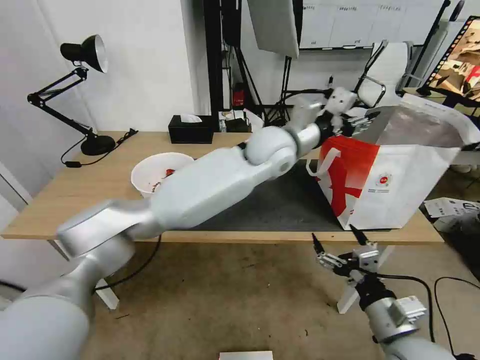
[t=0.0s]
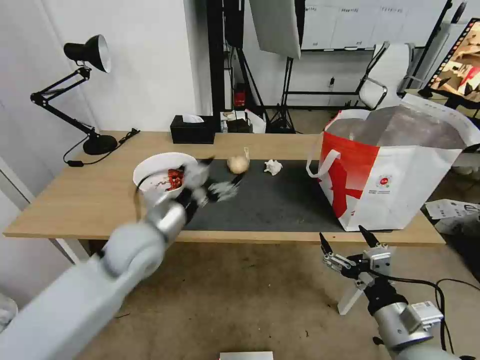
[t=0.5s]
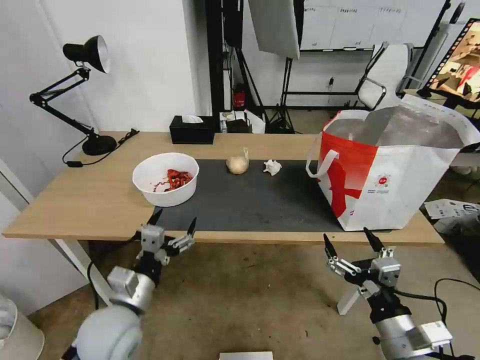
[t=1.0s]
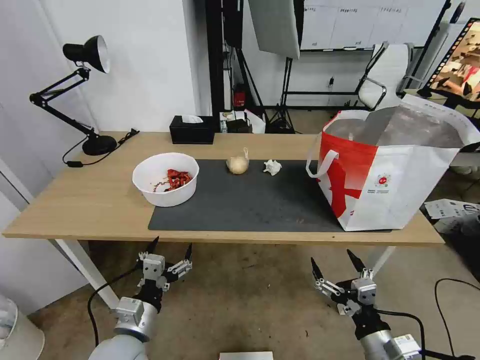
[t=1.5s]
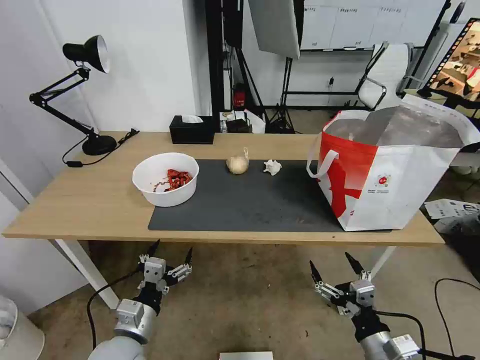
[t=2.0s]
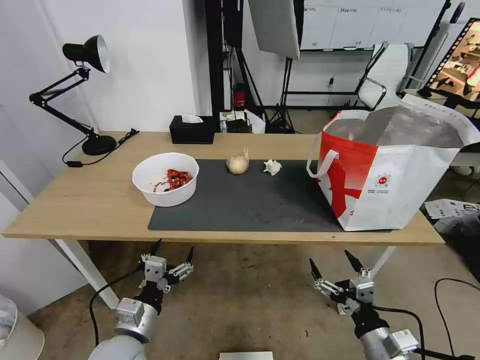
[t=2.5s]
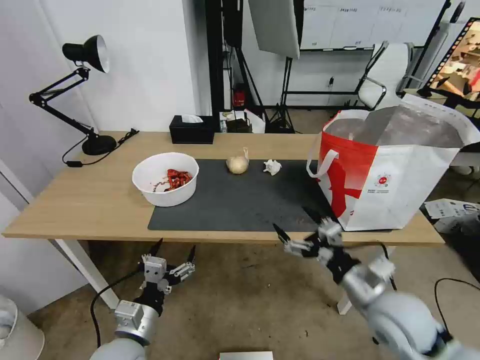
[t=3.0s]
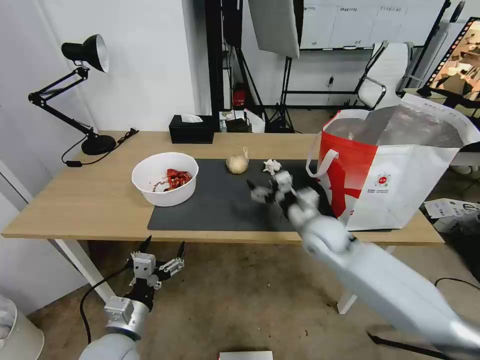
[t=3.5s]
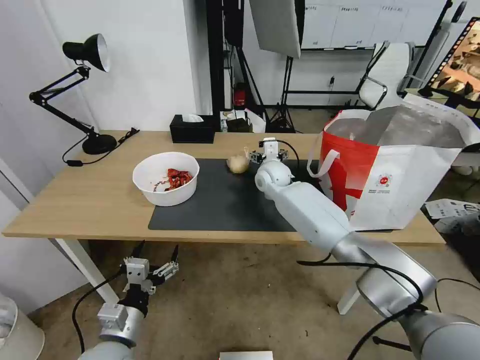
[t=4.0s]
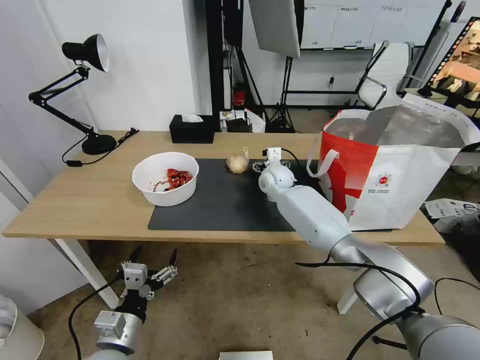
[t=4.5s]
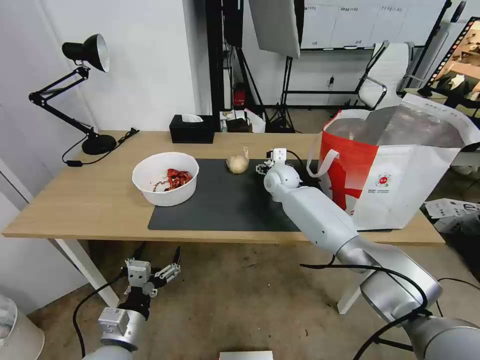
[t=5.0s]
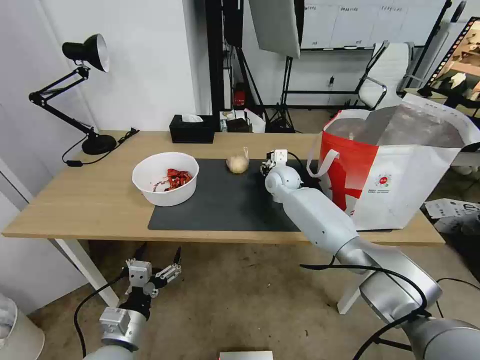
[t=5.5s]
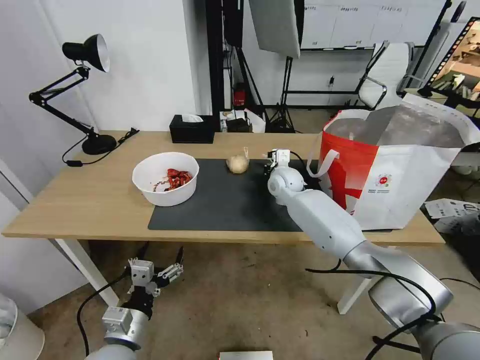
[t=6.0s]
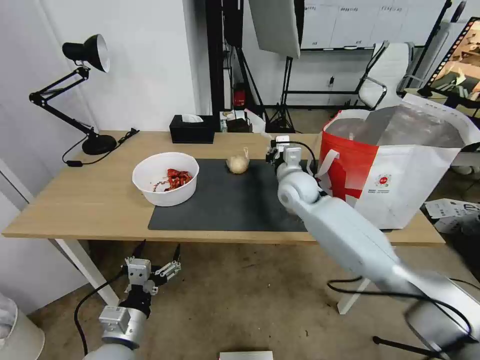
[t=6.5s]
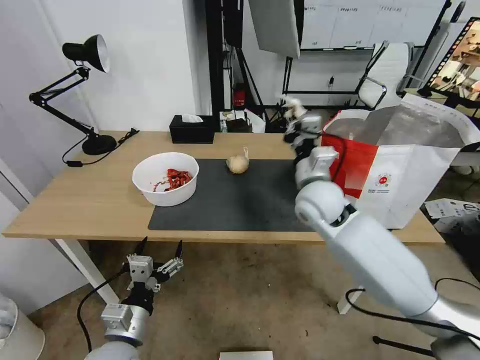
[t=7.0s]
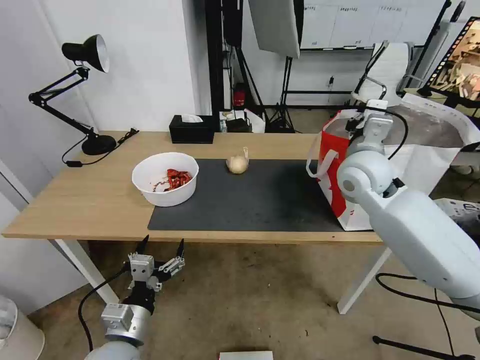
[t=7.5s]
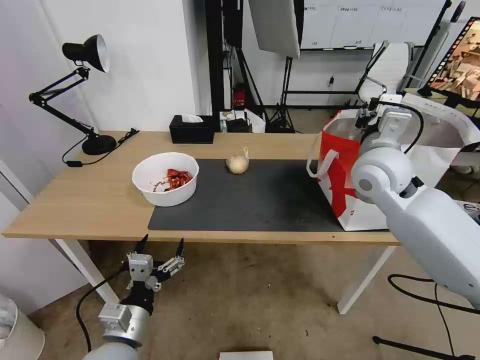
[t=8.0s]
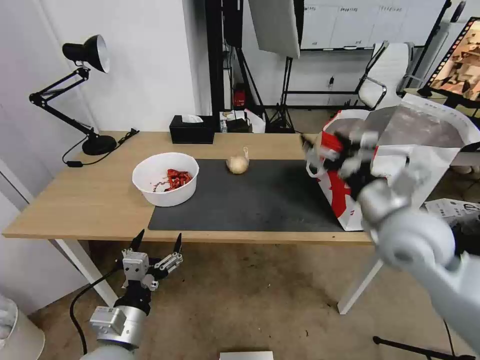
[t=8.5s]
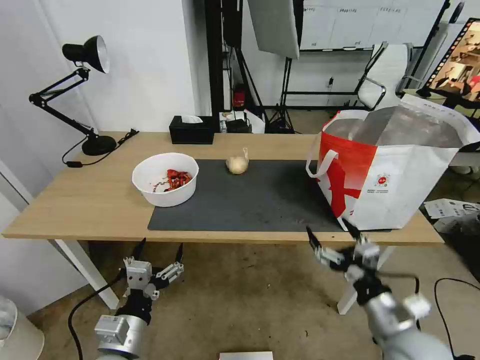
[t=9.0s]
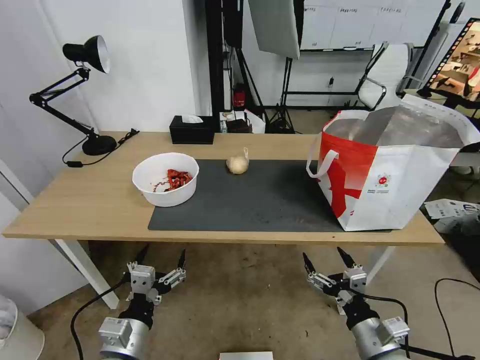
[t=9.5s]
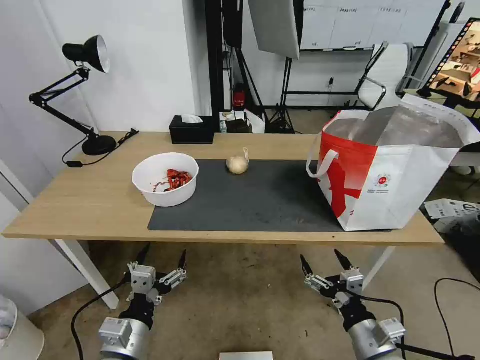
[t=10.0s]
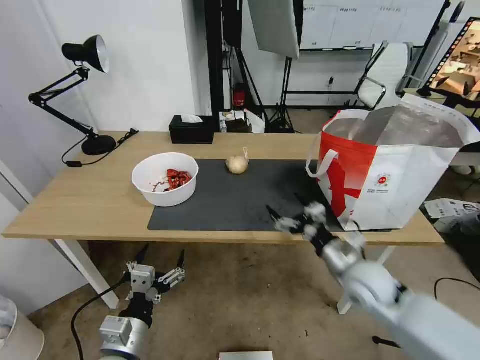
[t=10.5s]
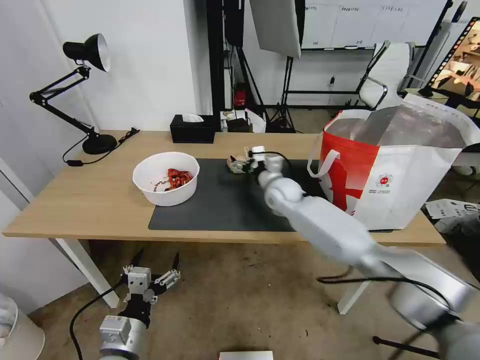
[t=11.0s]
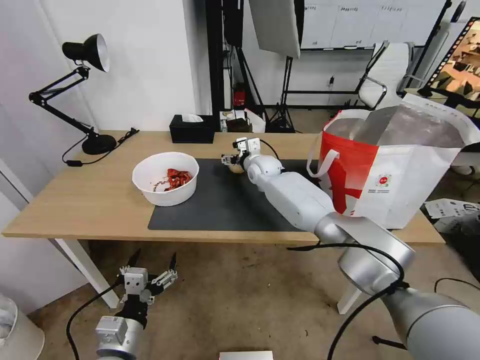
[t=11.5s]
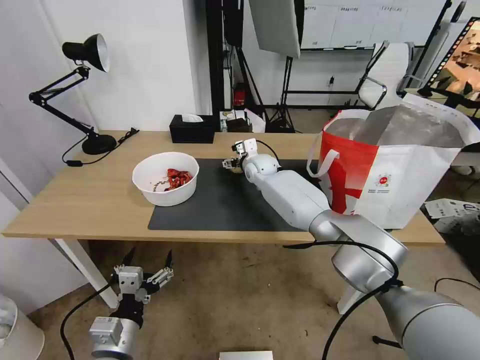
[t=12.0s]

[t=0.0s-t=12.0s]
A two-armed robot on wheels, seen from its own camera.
Task of the whole recording: Pick up the trash from the table and place it into the takeout bag.
t=0.0s to t=2.0s: The right gripper moves downward, some 5 cm, while the left gripper goes approximately 50 cm backward, to the left and downward, and opens.
t=2.0s to t=4.0s: The right gripper heads forward and to the left, covering roughly 50 cm.
t=4.0s to t=6.0s: The right gripper closes its fingers.
t=6.0s to t=8.0s: The right gripper goes approximately 25 cm upward, backward and to the right, and opens.
t=8.0s to t=10.0s: The right gripper heads backward and downward, covering about 40 cm, and opens.
t=10.0s to t=12.0s: The right gripper shifts some 50 cm forward and to the left.

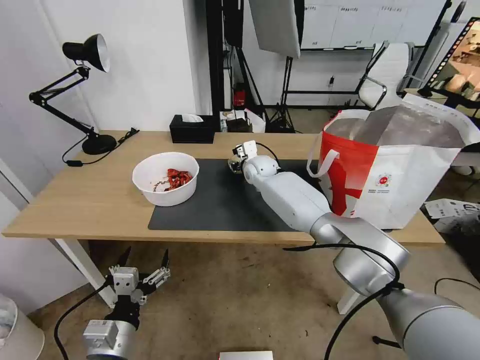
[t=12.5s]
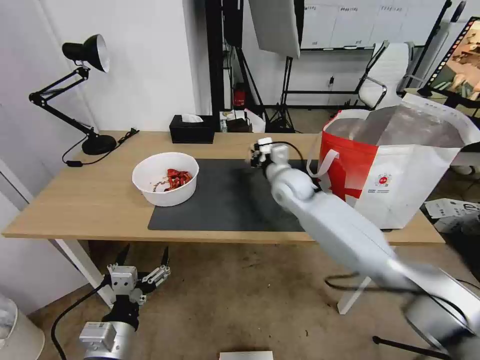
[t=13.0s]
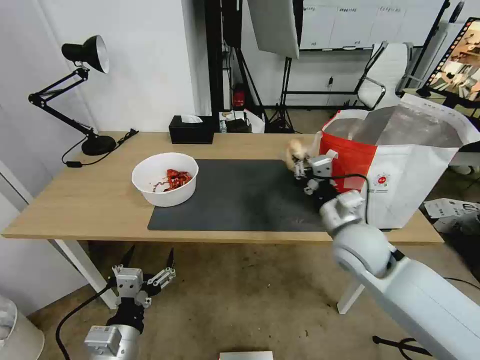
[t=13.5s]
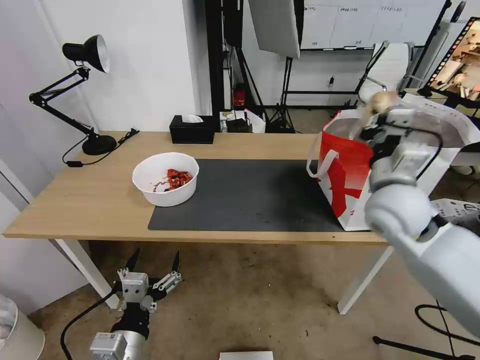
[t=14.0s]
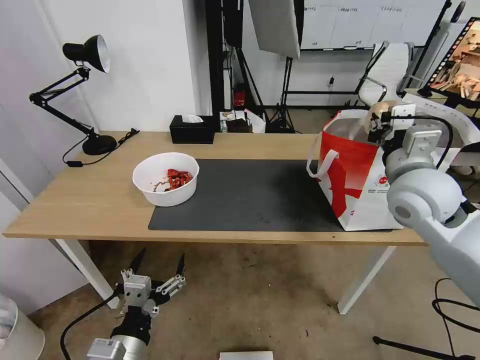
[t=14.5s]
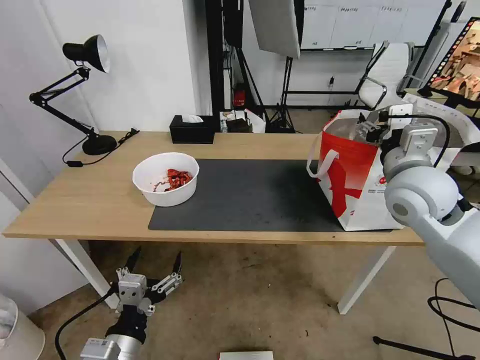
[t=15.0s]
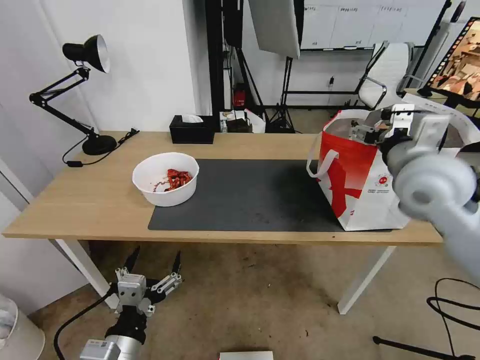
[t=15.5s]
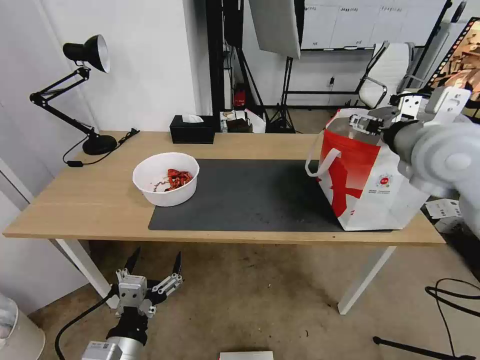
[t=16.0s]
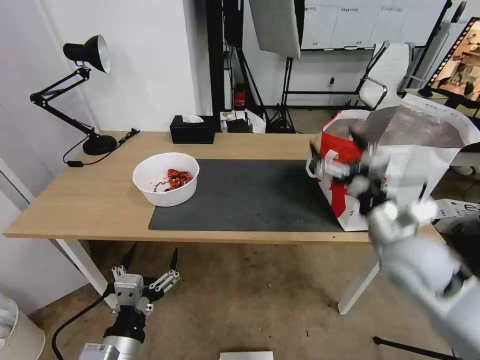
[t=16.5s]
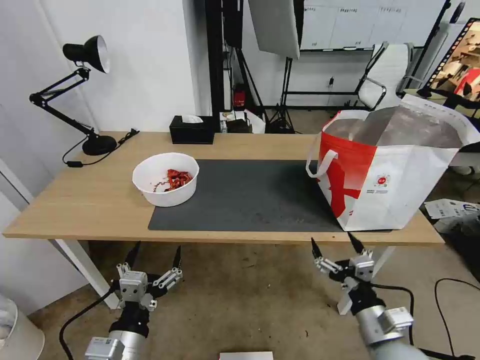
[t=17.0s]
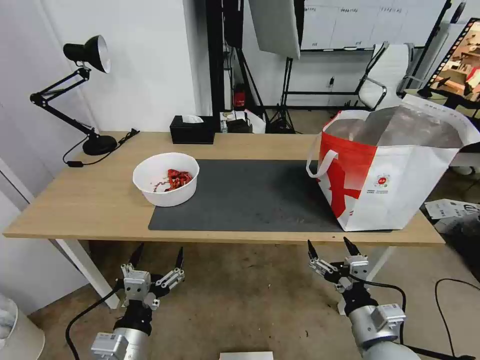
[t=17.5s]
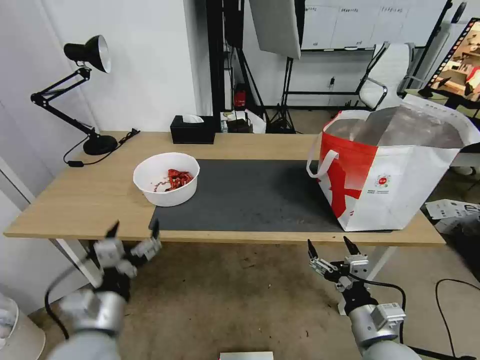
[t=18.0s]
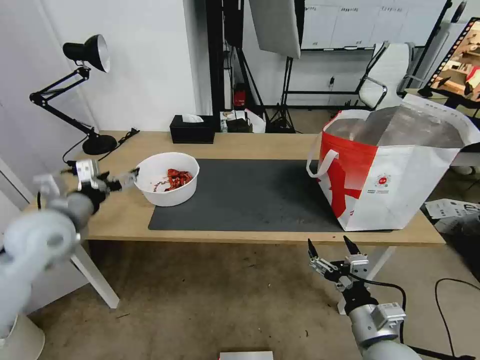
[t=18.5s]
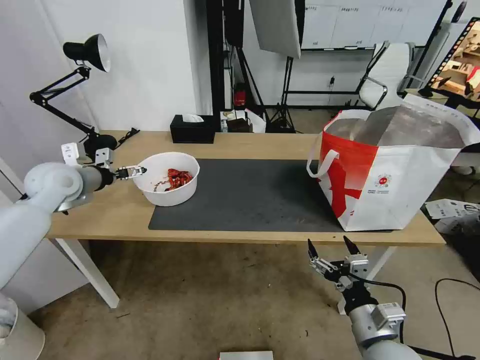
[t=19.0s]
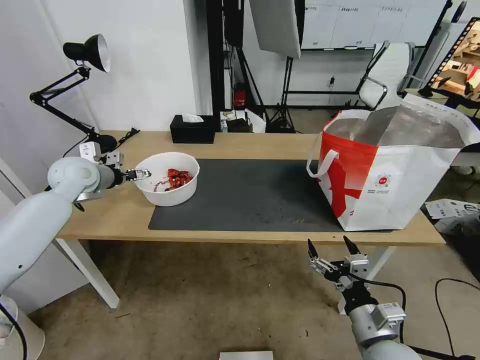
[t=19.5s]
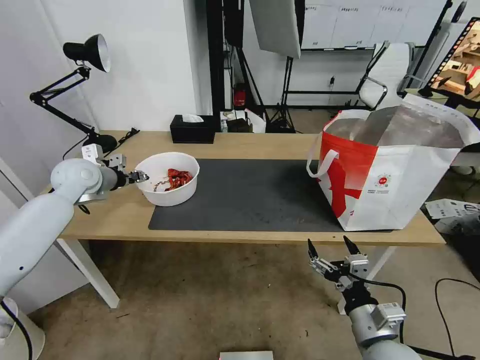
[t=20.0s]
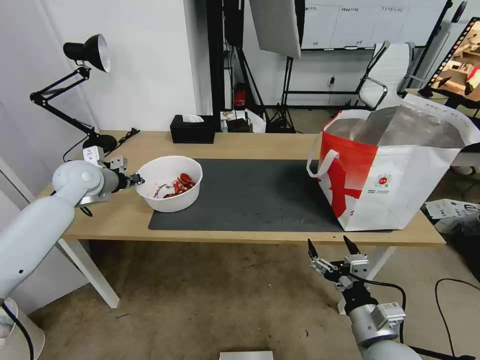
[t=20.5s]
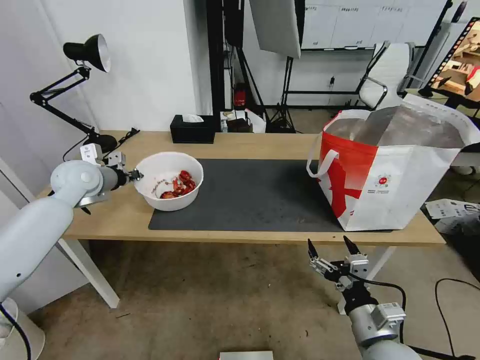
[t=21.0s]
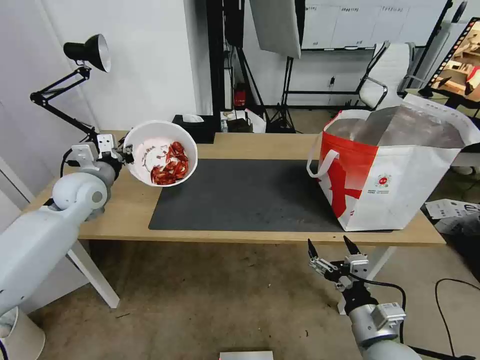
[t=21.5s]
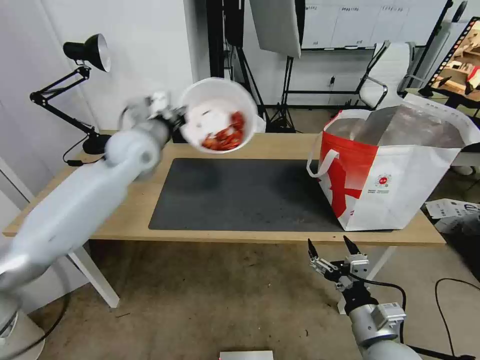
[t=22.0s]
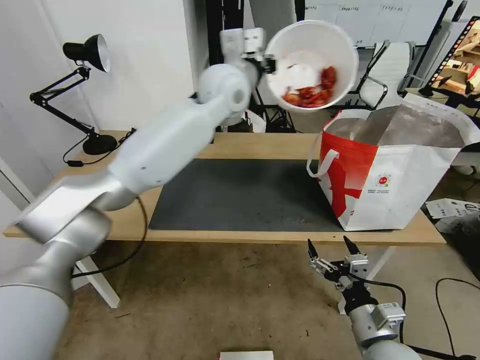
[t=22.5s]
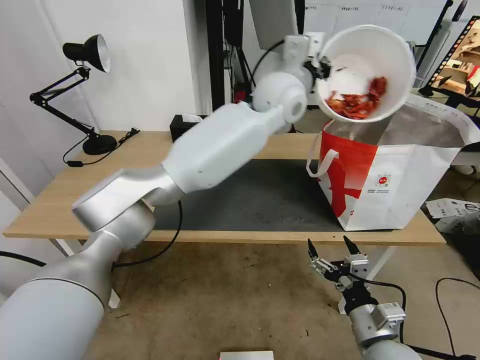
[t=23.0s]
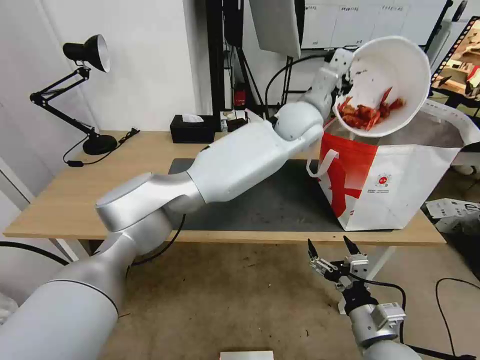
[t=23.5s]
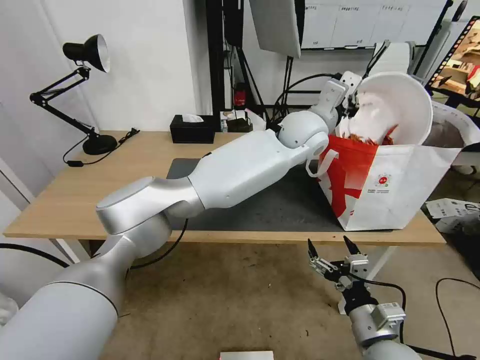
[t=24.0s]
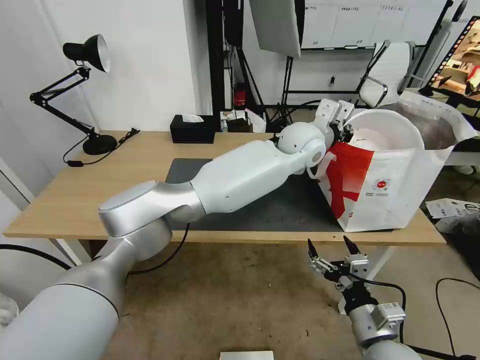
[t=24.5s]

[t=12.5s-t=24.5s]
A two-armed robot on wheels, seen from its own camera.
Task of the whole recording: Pick up the trash from the table and place it into the takeout bag.
t=12.5s to t=14.5s: The right gripper is displaced backward, to the right and upward by approximately 40 cm.
t=14.5s to t=16.5s: The right gripper moves downward and backward, some 15 cm, and opens its fingers.
t=16.5s to t=18.5s: The right gripper heads backward and downward, covering roughly 15 cm. Meanwhile the left gripper moves forward, to the left and upward, roughly 30 cm.
t=18.5s to t=20.5s: The left gripper moves forward, roughly 15 cm, and closes its fingers.
t=20.5s to t=22.5s: The left gripper is displaced to the right and upward by some 40 cm.
t=22.5s to t=24.5s: The left gripper travels to the right and downward by roughly 20 cm.

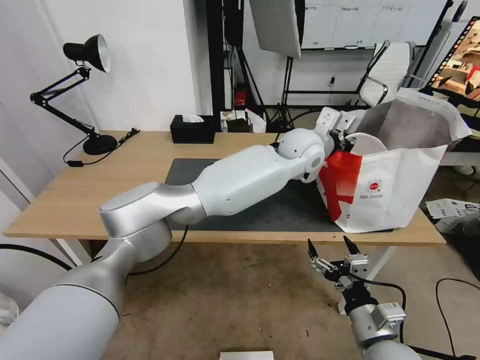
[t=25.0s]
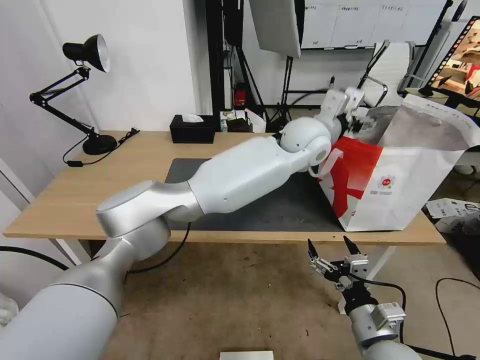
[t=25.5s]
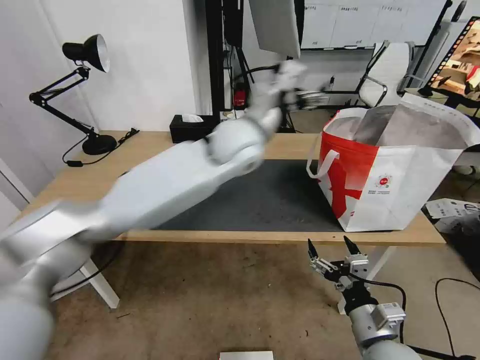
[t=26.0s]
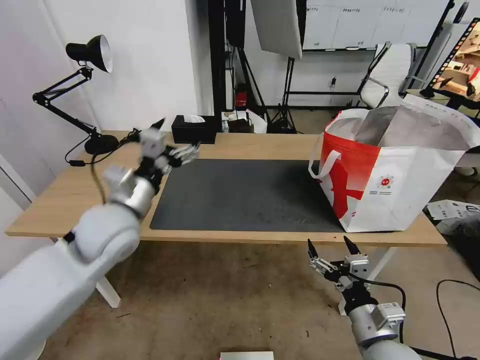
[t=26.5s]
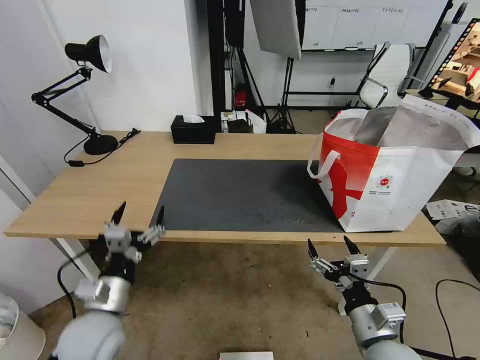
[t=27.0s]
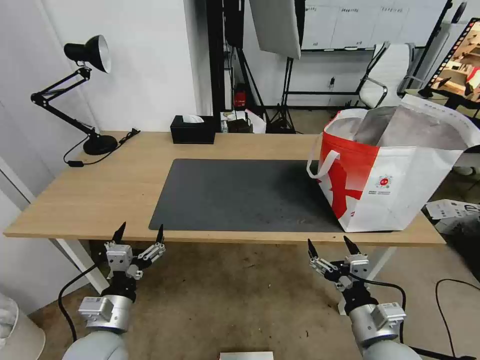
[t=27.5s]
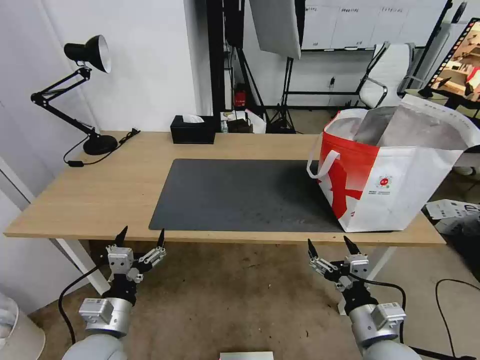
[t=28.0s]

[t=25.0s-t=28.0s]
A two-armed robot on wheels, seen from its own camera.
Task of the whole recording: Pick up the trash from the table and place it into the takeout bag.
t=25.0s to t=26.5s: The left gripper is displaced to the left and backward by some 40 cm, and opens up.
t=26.5s to t=28.0s: The left gripper is displaced downward and backward by some 25 cm.
